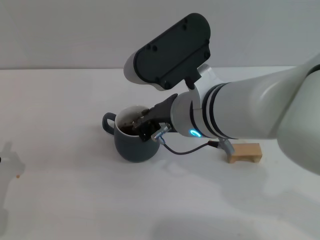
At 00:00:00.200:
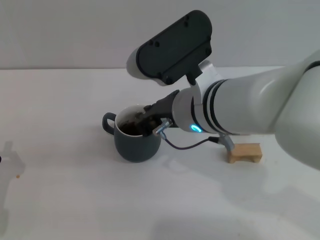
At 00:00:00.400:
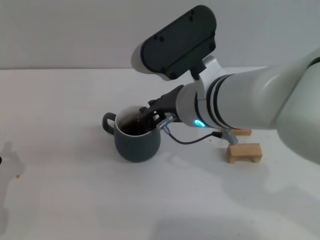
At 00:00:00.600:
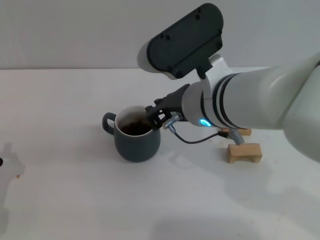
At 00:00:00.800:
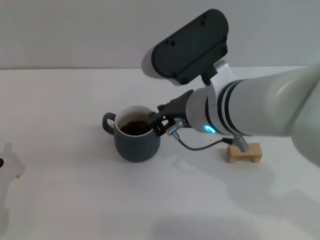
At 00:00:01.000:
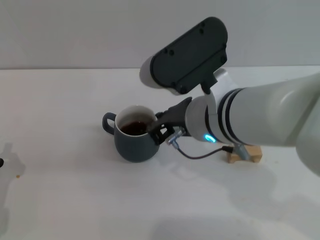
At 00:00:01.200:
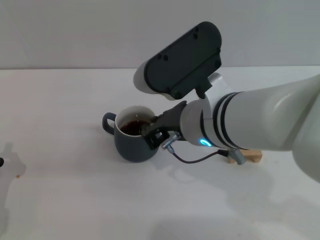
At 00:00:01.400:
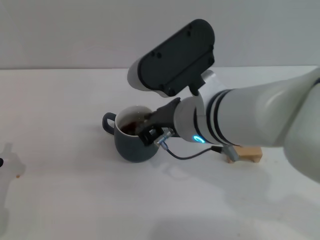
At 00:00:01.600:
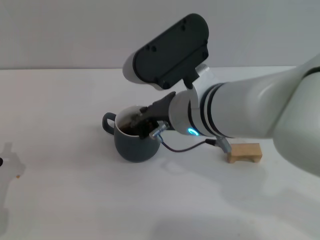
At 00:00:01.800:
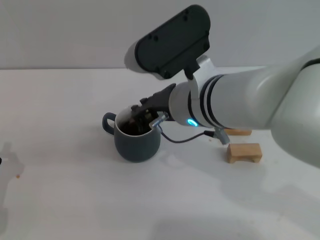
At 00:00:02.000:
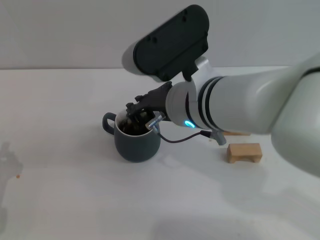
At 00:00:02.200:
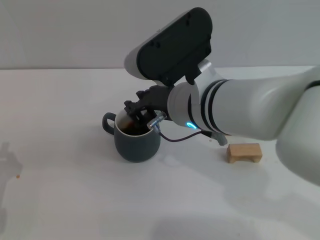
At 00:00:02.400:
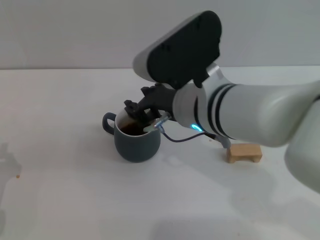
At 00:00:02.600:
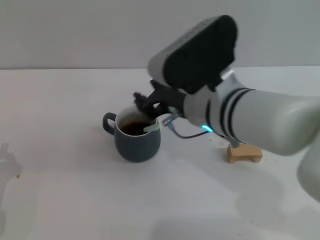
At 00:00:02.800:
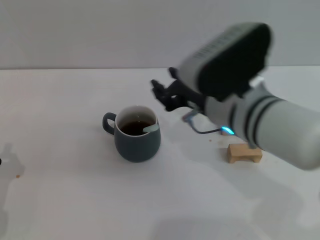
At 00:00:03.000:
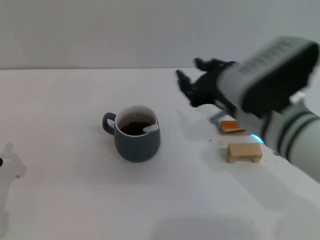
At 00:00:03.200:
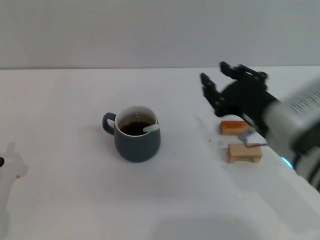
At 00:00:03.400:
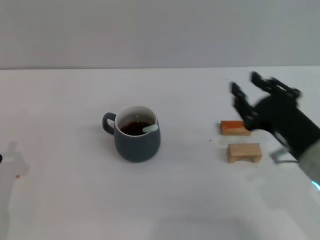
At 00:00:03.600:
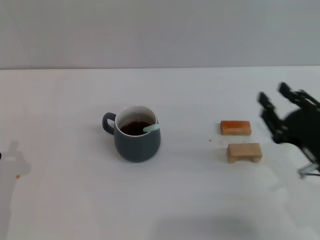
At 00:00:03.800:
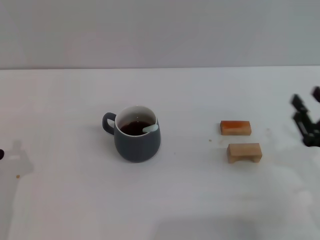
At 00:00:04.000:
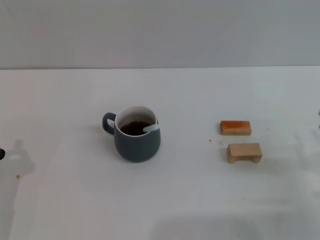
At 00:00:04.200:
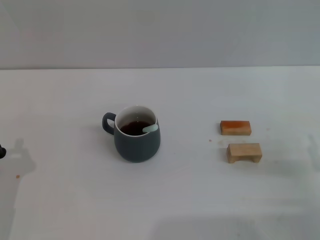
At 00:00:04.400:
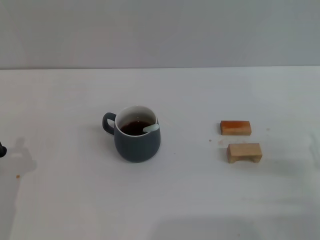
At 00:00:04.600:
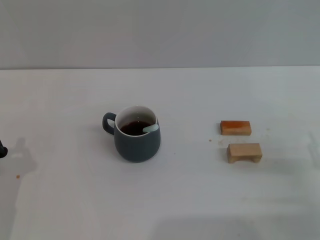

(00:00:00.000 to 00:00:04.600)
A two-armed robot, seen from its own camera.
Task of the whole recording: Move the grey cup to the center, lift the blue spoon, stir it three times in the cup, and put the spoon into the cup.
Step, 00:00:00.000 - 00:00:02.200: Stir the coffee in the cup with the right gripper.
00:00:00.000 - 00:00:01.600: The grippers make only small movements.
00:00:01.600 - 00:00:03.000: The right gripper moves to the right, about 10 cm, and opens up.
00:00:03.000 - 00:00:04.600: The right gripper moves to the right and downward, roughly 20 cm.
